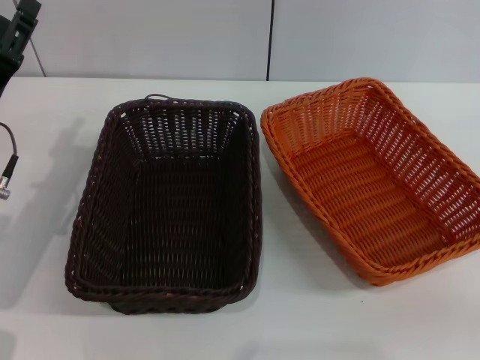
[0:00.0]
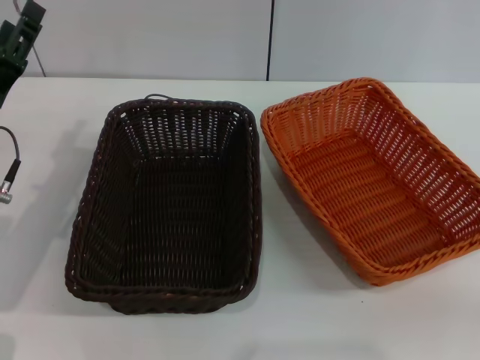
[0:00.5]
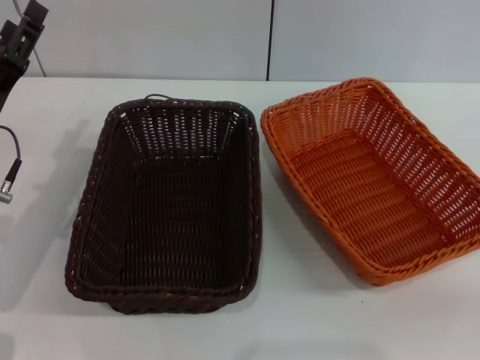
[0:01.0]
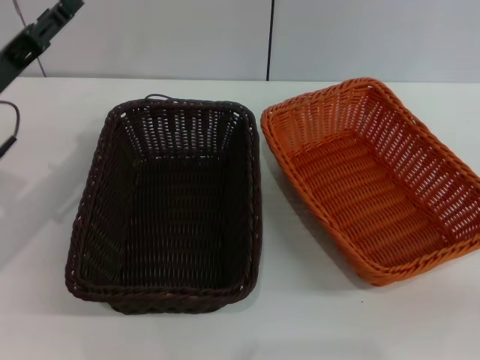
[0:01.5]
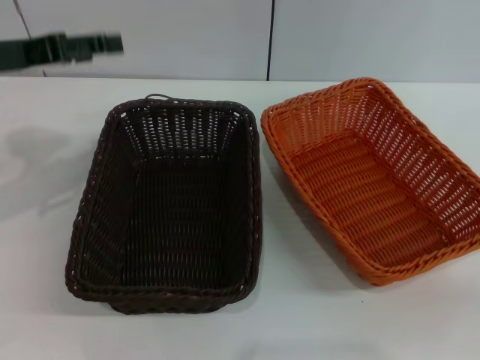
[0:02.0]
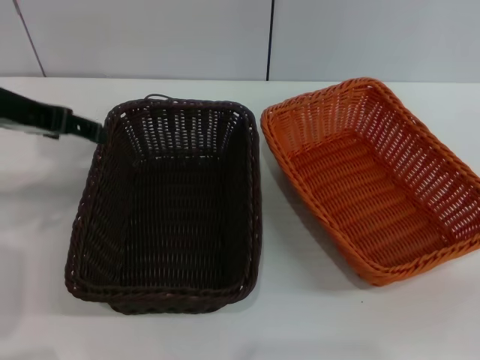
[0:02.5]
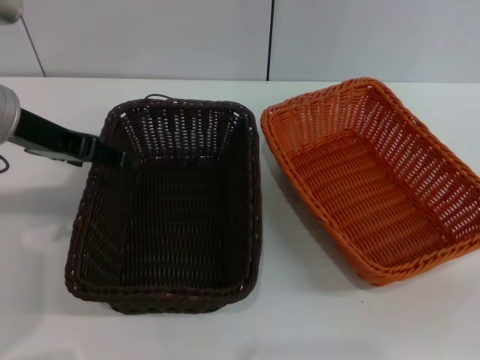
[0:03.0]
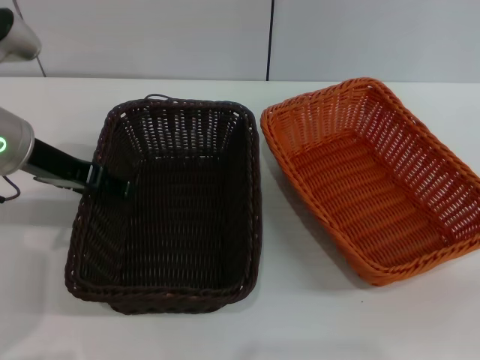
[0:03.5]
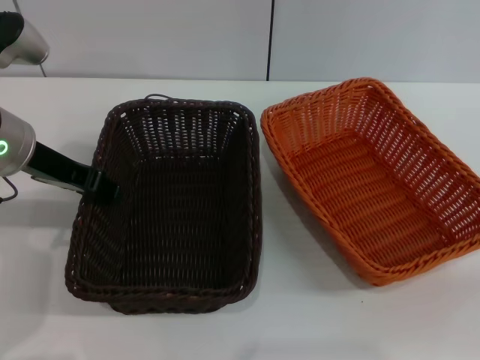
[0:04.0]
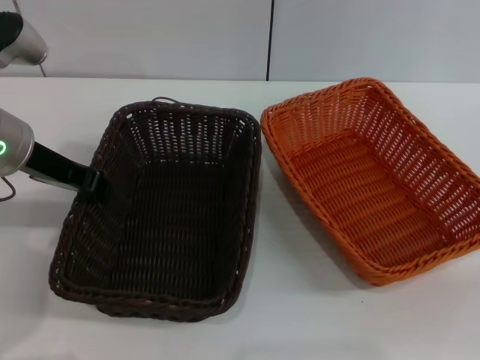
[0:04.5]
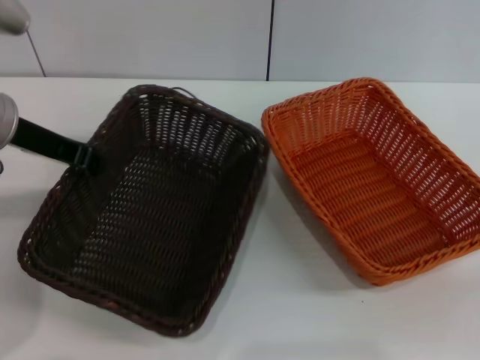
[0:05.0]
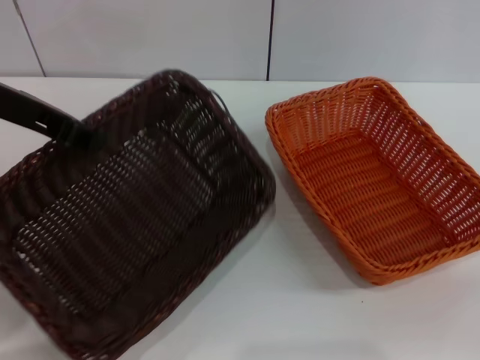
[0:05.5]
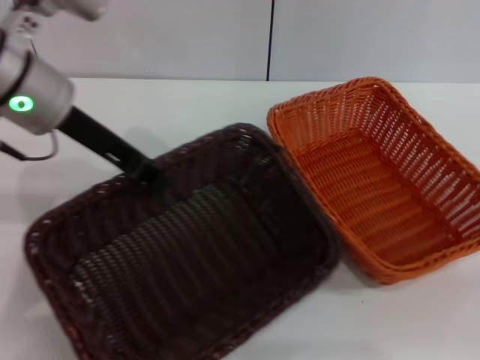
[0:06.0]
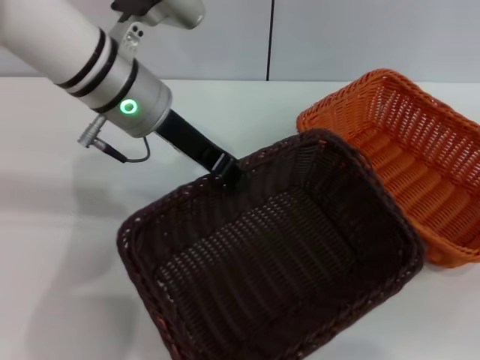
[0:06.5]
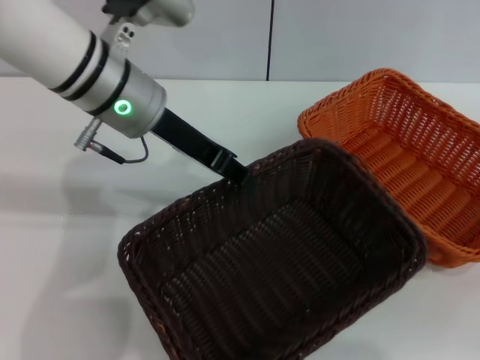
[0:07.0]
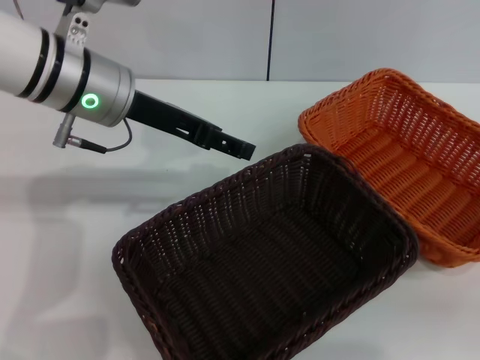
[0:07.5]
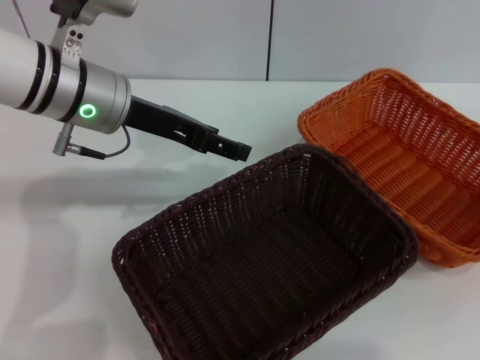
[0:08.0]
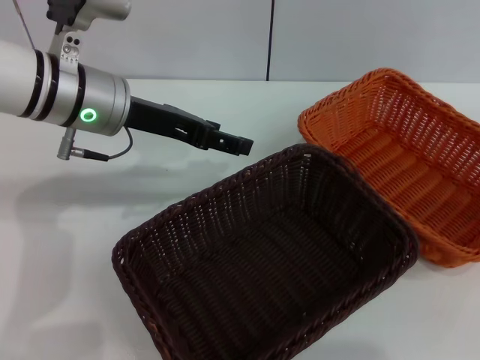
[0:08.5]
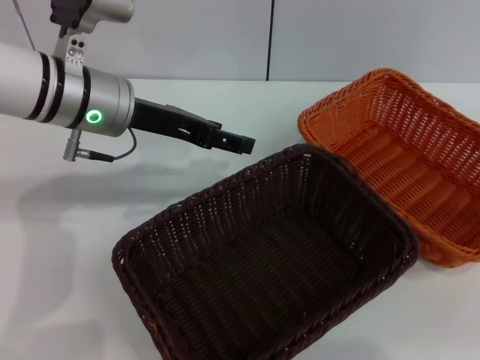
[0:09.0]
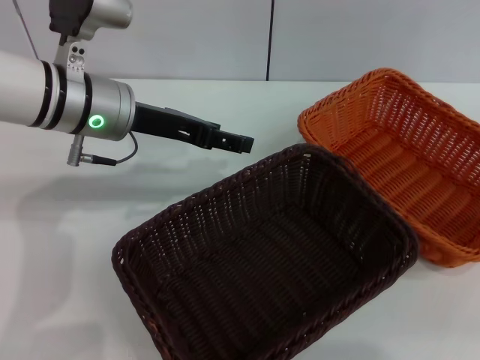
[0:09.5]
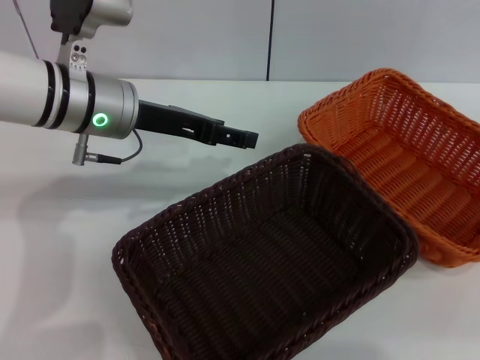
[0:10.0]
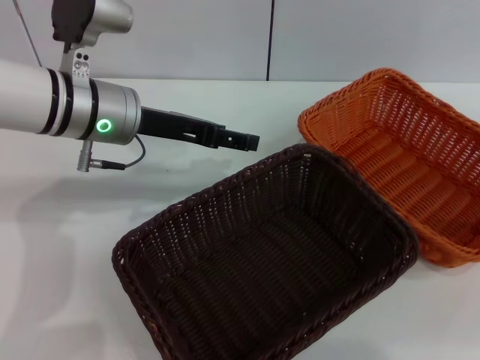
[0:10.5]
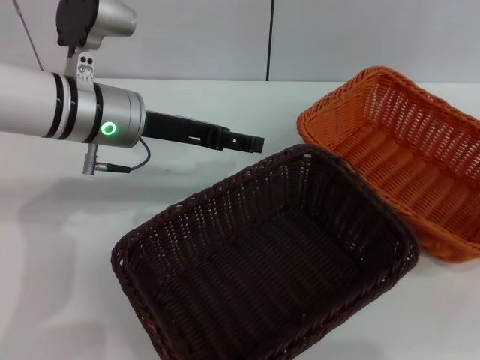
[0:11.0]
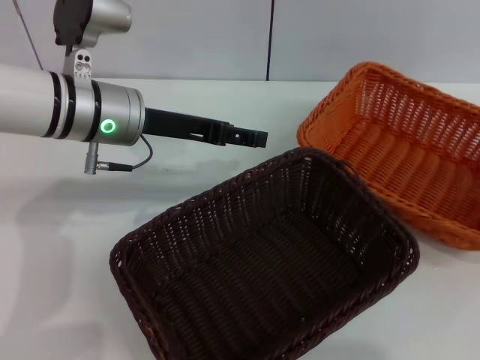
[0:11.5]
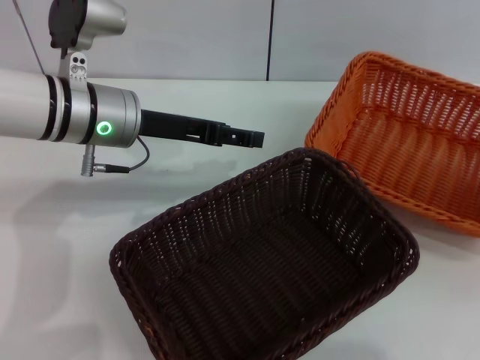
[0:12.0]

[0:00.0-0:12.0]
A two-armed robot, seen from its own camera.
Step, 0:00.0 to 0:05.0: Pick up the dark basket with the left gripper.
Step, 0:05.5 to 0:07.0: Place the dark basket in the center of view with the left gripper.
Step, 0:08.0 to 0:10.5: Pick up the light basket with the right gripper.
0:00.0 to 0:02.0: The left gripper shifts some 10 cm upward.
0:02.0 to 0:04.0: The left gripper travels to the right by roughly 5 cm.
0:04.0 to 0:06.0: The left gripper goes roughly 5 cm upward, and closes.
0:06.0 to 0:08.0: The left gripper opens up; the right gripper goes some 20 cm upward.
0:08.0 to 0:10.0: The right gripper shifts about 10 cm forward and to the left.
0:10.0 to 0:12.0: The right gripper closes.

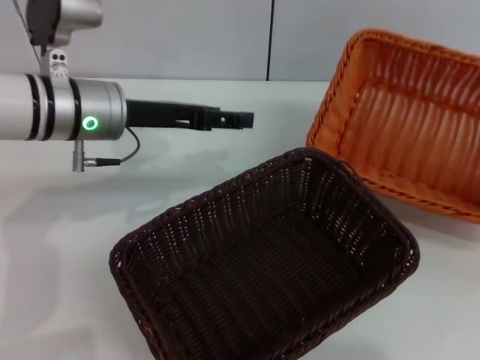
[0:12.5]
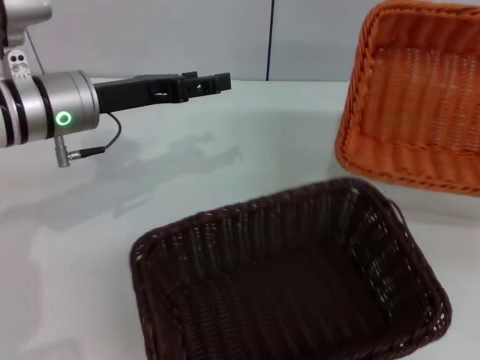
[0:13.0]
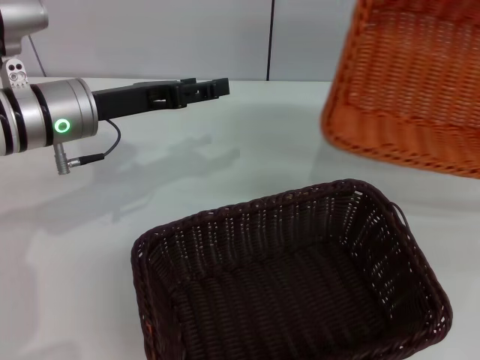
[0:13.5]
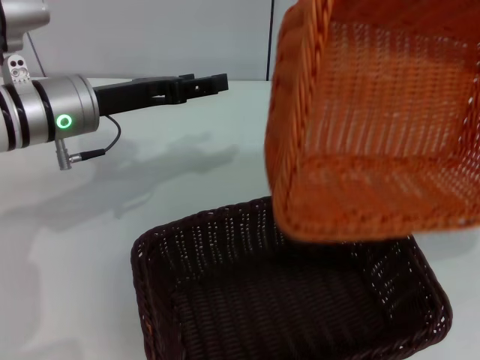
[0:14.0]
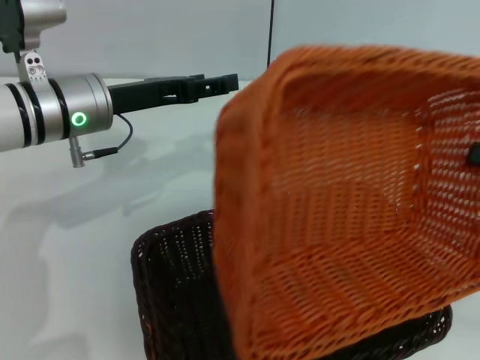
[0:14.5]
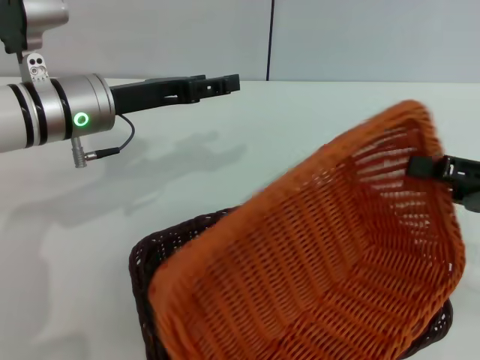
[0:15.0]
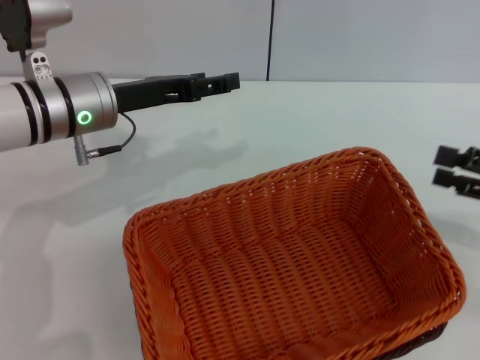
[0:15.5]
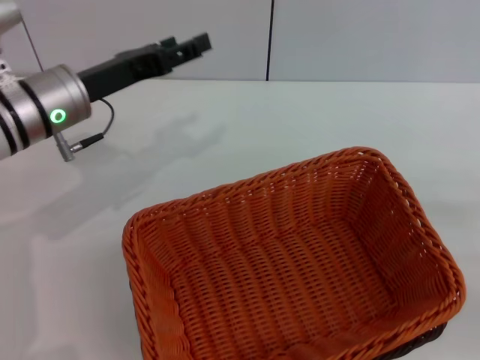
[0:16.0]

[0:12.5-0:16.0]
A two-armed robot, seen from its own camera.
Step, 0:12.5 to 0:15.0: Place the light basket on the dark basket with the right gripper.
0:12.5 to 0:14.5: The right gripper goes roughly 10 cm to the left and backward.
0:14.5 to 0:16.0: The right gripper moves roughly 5 cm, and opens up.

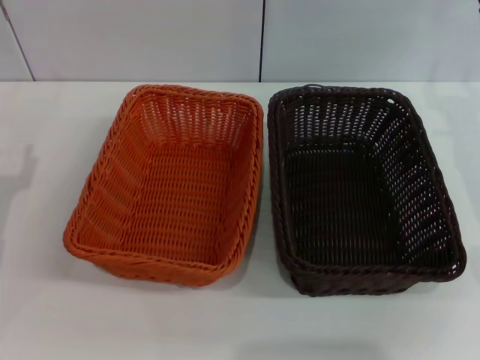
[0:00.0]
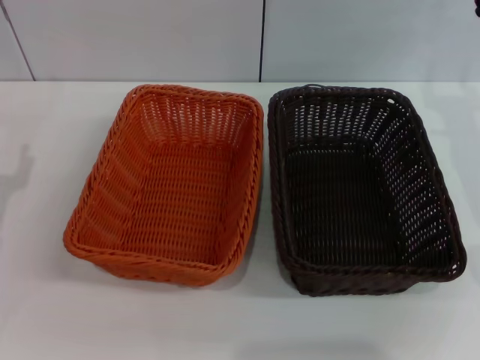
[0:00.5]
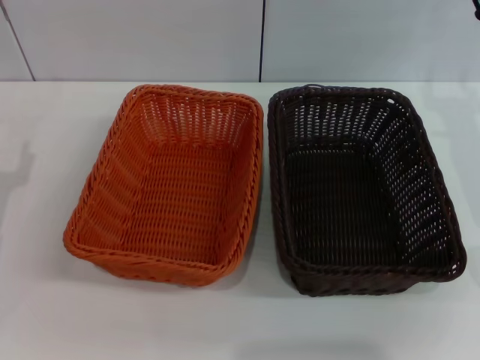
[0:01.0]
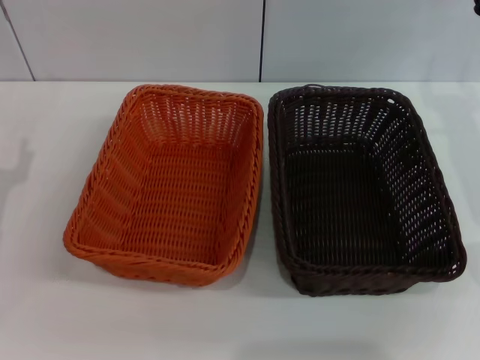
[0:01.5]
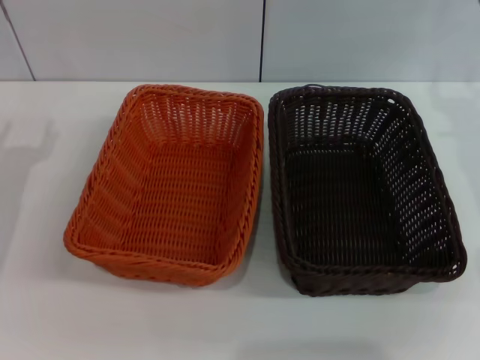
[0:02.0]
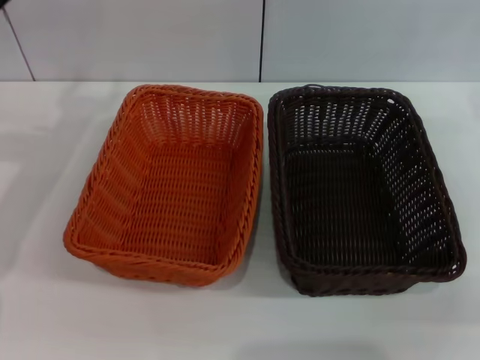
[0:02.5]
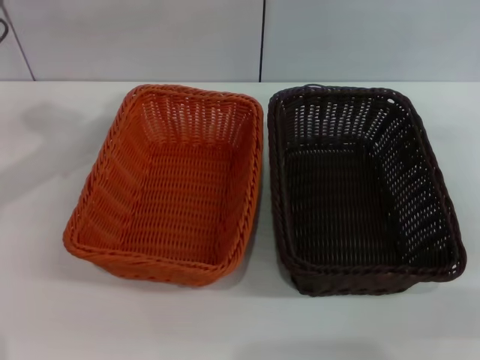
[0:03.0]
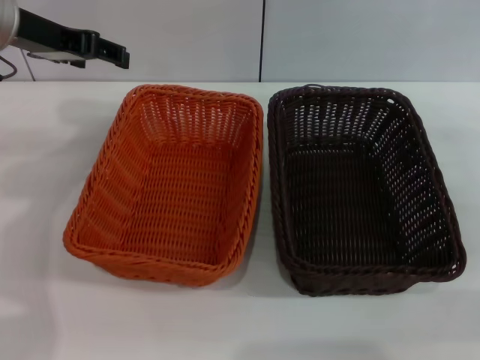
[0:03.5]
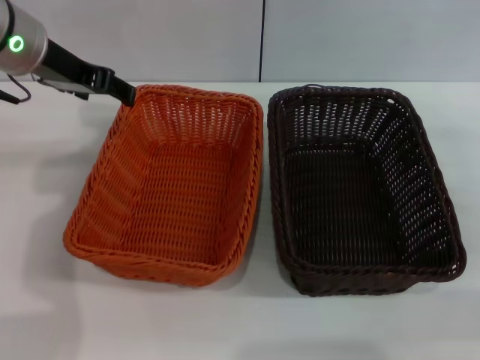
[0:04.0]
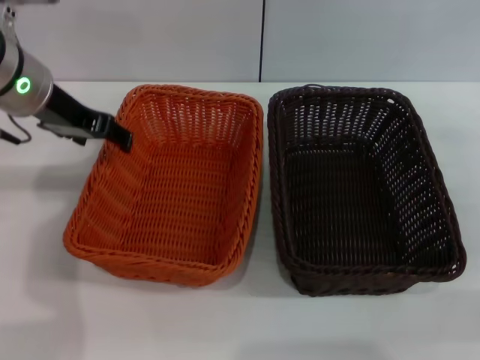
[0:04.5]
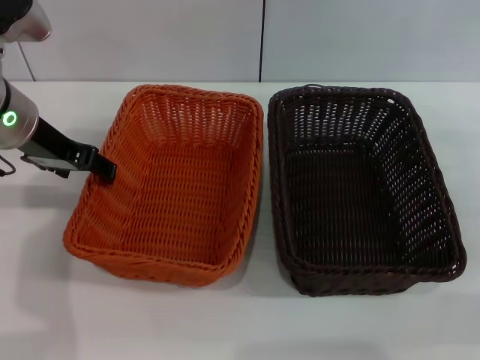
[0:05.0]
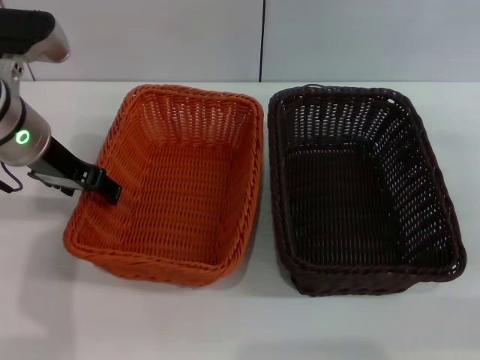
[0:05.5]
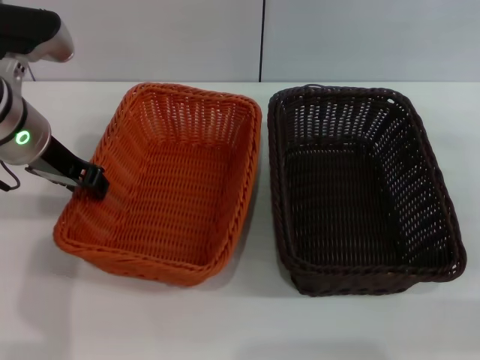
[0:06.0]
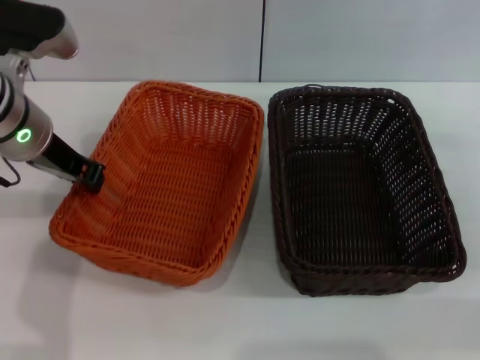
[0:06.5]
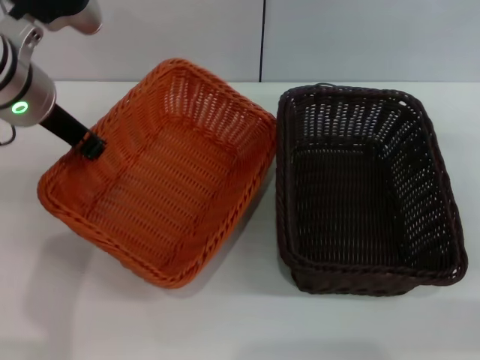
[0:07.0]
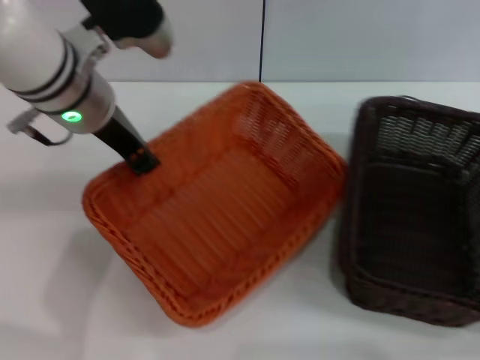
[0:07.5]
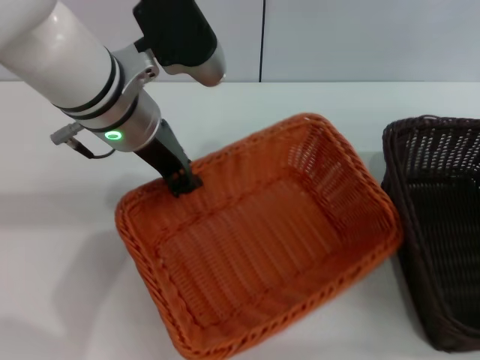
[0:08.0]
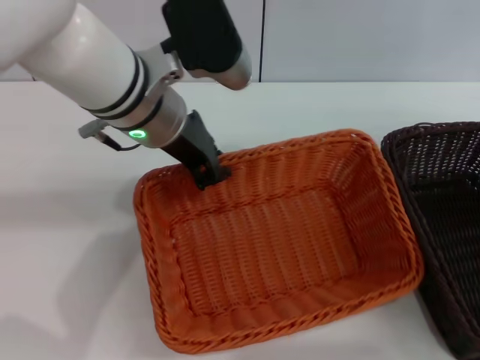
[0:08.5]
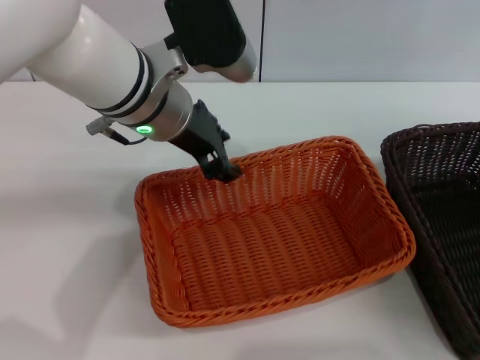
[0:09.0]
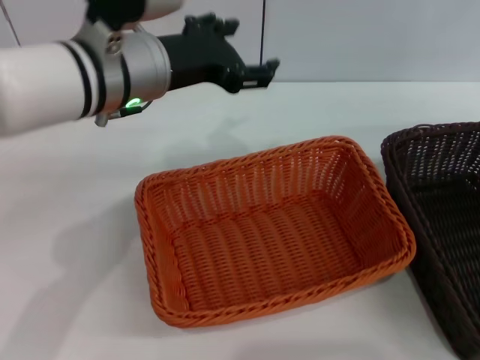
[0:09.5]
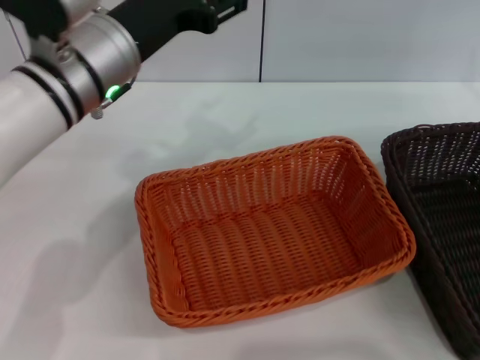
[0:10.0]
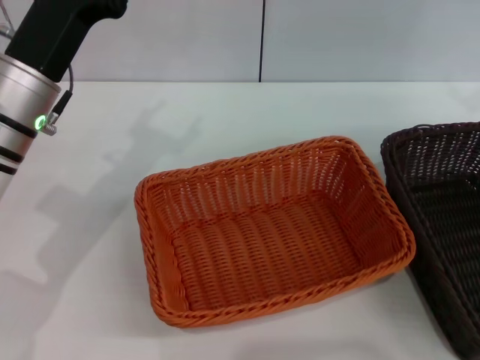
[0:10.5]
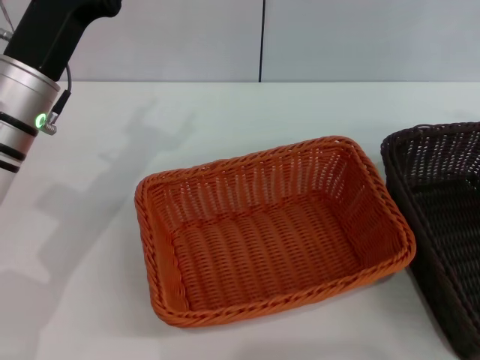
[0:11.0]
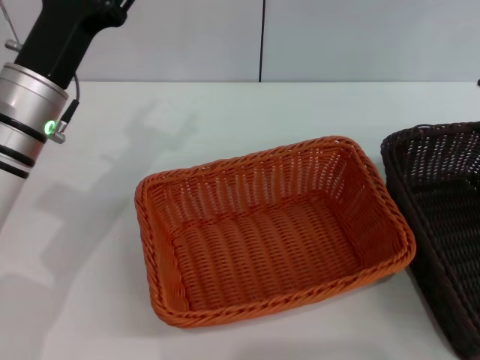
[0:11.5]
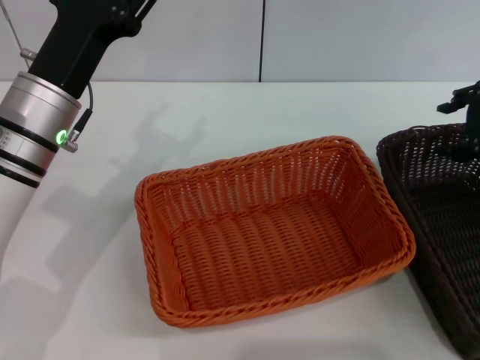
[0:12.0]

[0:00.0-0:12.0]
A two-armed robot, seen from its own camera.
Step, 0:00.0 to 0:06.5: Pick up the light basket with the left gripper.
Step, 0:07.0 to 0:08.5: Place the light basket in the center of view with the left gripper.
0:02.0 to 0:04.0: The left gripper travels upward, to the right and forward by approximately 20 cm. The right gripper heads to the right, covering some 10 cm.
0:04.0 to 0:06.0: The left gripper is displaced downward by some 5 cm, and closes its fingers.
0:06.0 to 0:08.0: The left gripper is displaced to the right by some 10 cm, and closes its fingers.
0:08.0 to 0:10.0: The left gripper opens its fingers. Meanwhile the right gripper travels upward and forward by about 15 cm.
0:10.0 to 0:12.0: The right gripper heads to the left, covering approximately 10 cm. Meanwhile the left gripper heads downward, covering approximately 5 cm.
